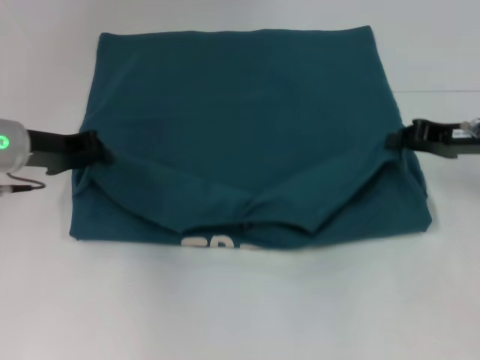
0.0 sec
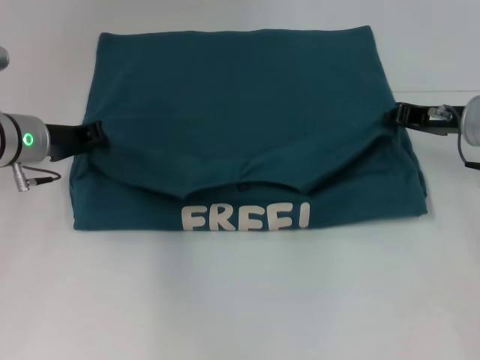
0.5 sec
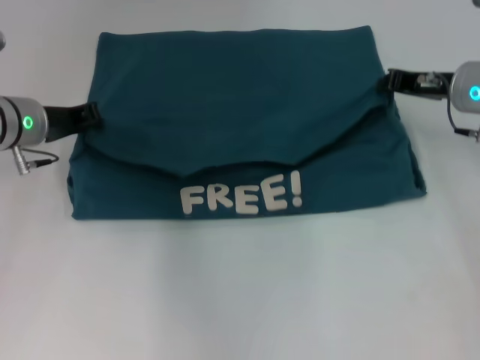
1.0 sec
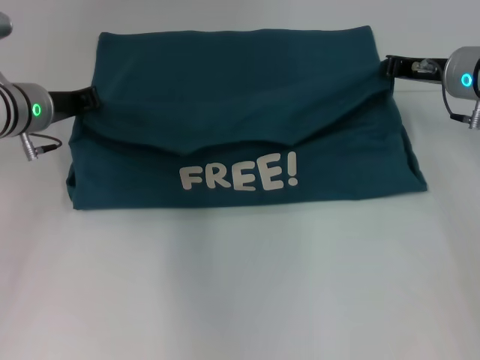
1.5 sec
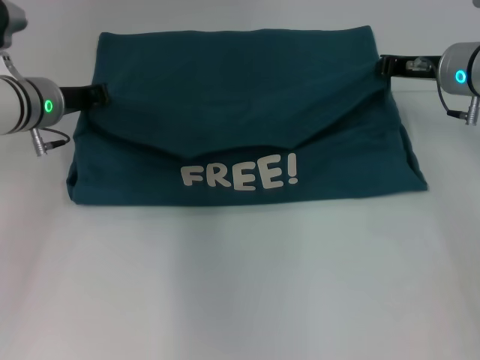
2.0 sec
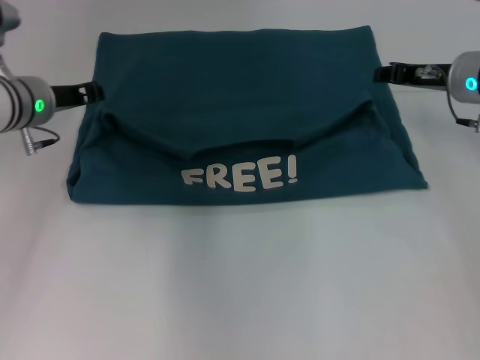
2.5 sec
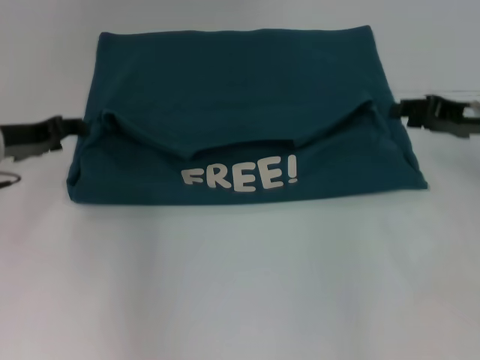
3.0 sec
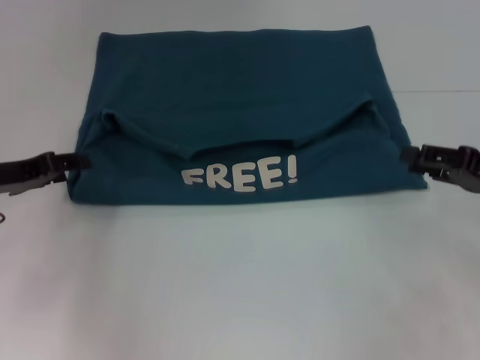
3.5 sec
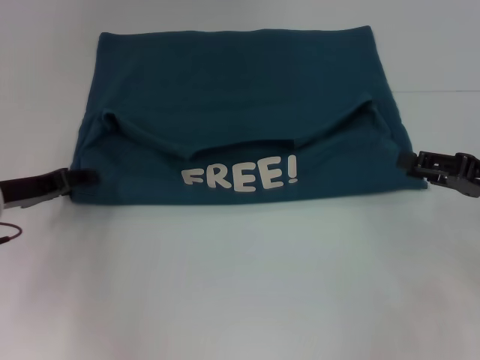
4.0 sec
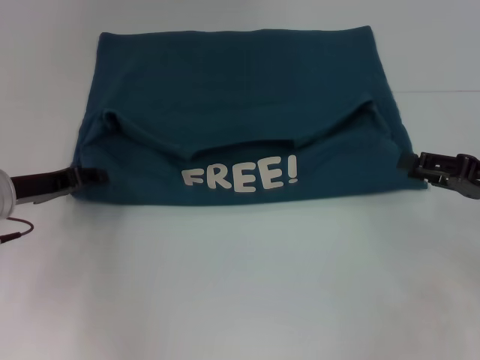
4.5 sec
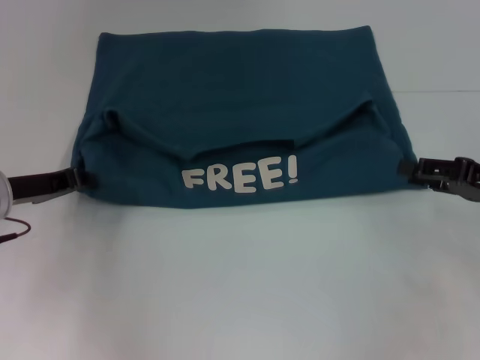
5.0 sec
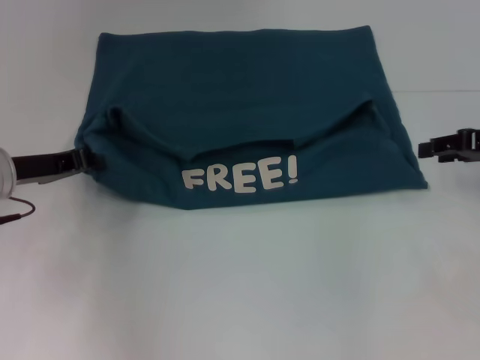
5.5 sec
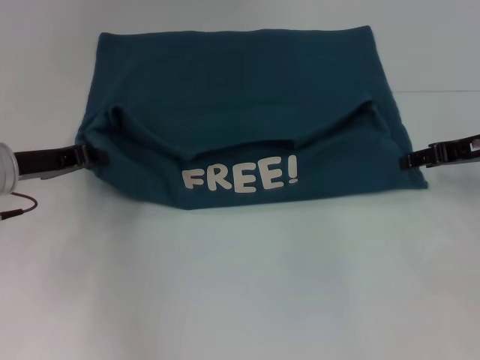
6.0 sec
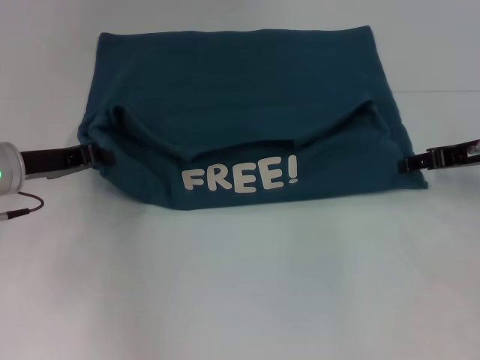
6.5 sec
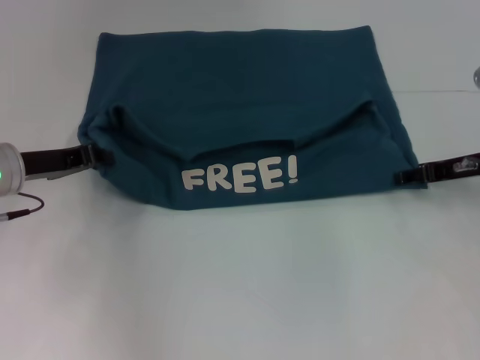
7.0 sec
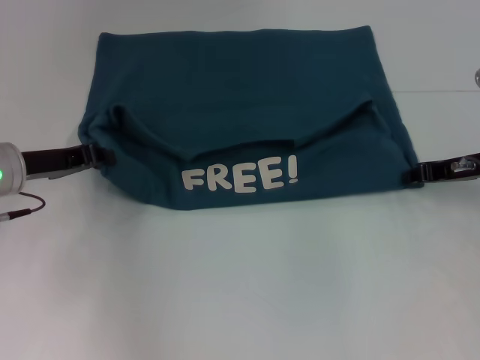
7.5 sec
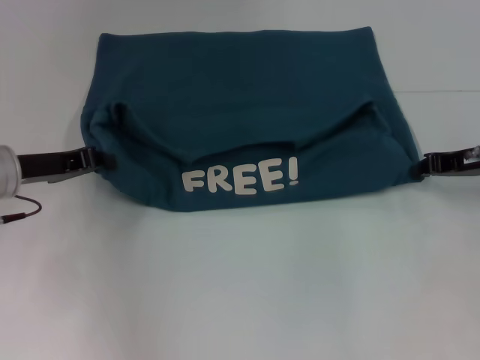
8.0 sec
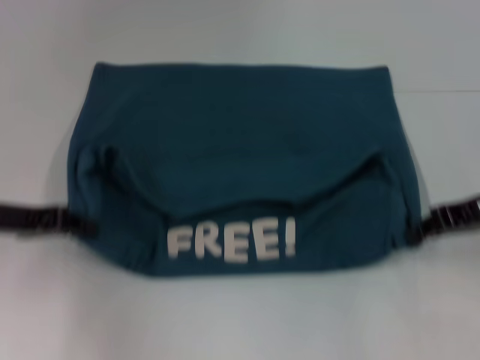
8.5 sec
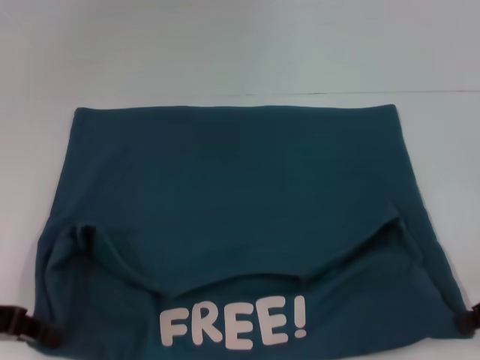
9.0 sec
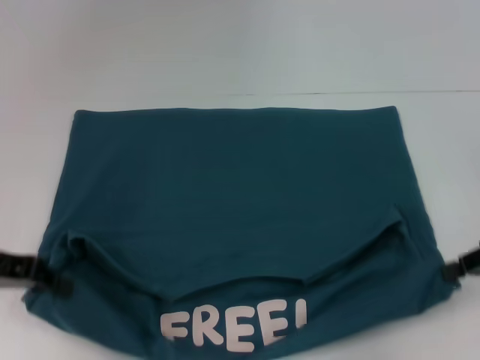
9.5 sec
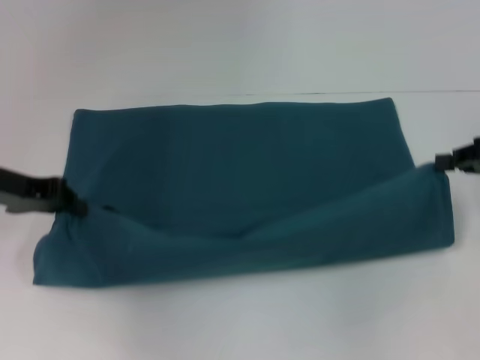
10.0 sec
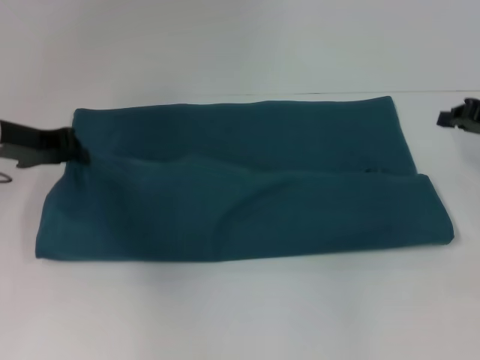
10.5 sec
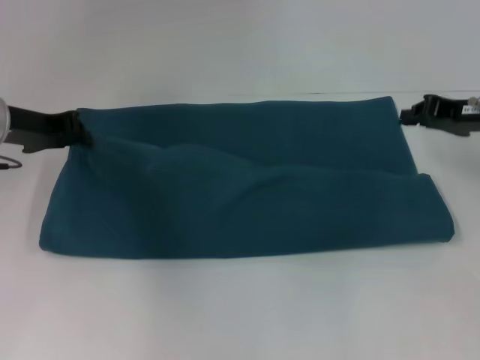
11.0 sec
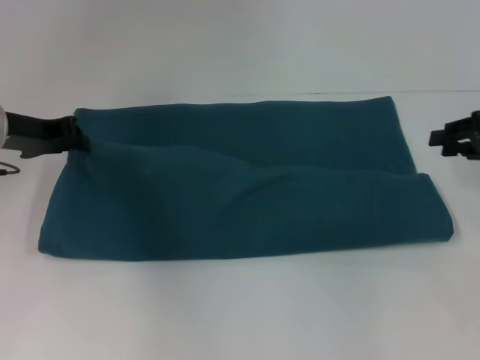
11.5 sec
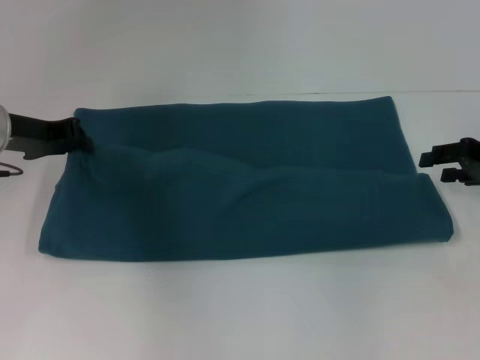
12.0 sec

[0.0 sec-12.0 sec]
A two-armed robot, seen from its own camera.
Step, 0.0 sec to 2.5 sec: Fold the clothes to the left.
Step, 0.0 sec to 2.5 sec: Fold the clothes to the right.
Step, 3.0 sec to 8.5 sec: Pull the clothes with your left hand.
Step, 3.0 sec to 8.5 sec: Pull the clothes with your right hand.
0.0 sec to 2.0 sec: The right gripper travels forward and to the left by approximately 10 cm. The left gripper ends up about 5 cm from where it was.
2.0 sec to 4.0 sec: The right gripper moves backward and to the right, about 15 cm, and opens its fingers; the left gripper moves backward and to the left, approximately 10 cm, and opens up.
4.0 sec to 6.0 sec: The left gripper closes its fingers; the right gripper heads forward, covering approximately 10 cm.
6.0 sec to 8.0 sec: The right gripper closes its fingers.
8.0 sec to 10.0 sec: The left gripper travels backward and back again, about 10 cm each way.
10.0 sec to 12.0 sec: The right gripper opens its fingers.

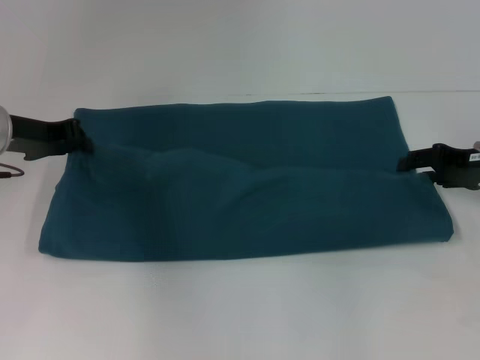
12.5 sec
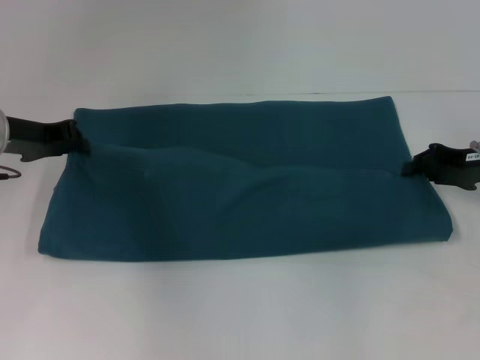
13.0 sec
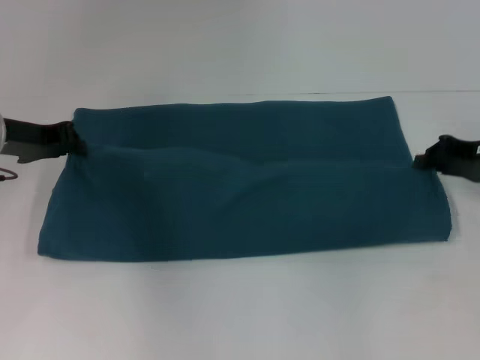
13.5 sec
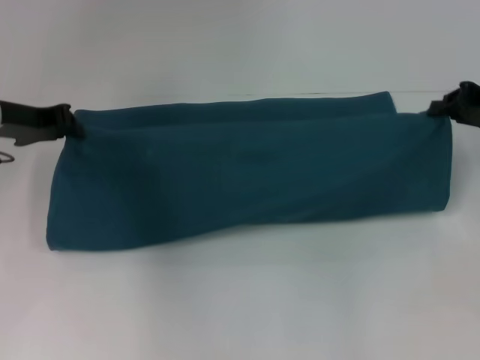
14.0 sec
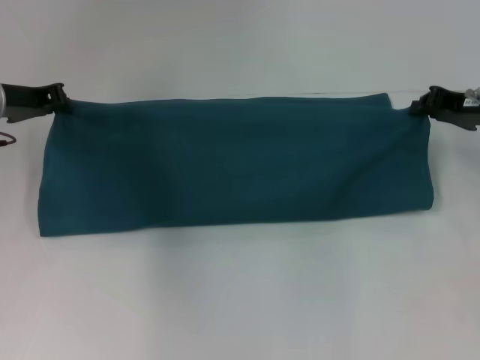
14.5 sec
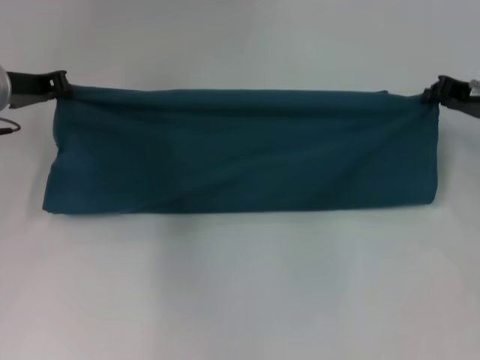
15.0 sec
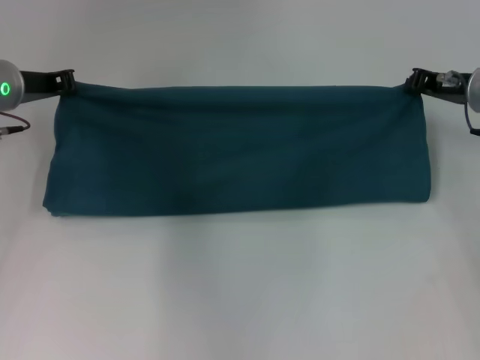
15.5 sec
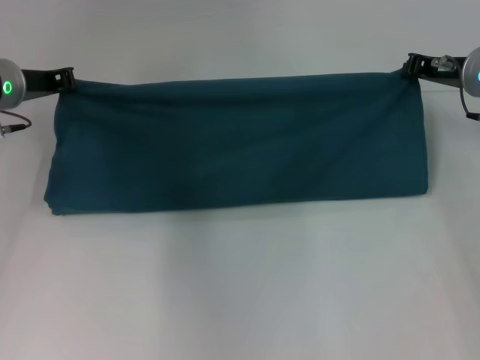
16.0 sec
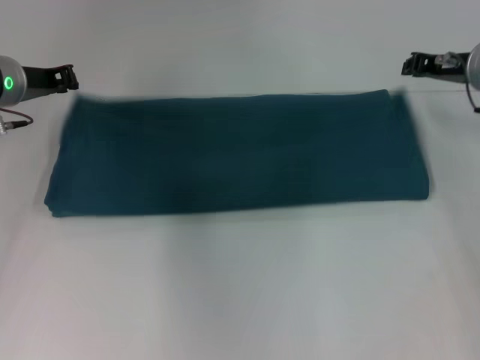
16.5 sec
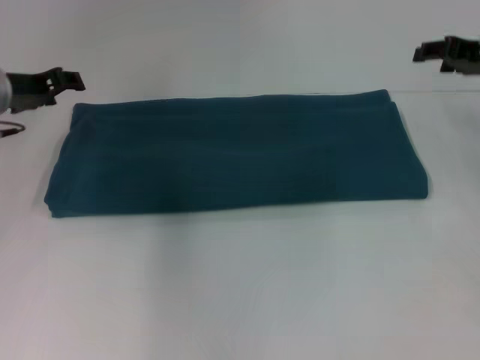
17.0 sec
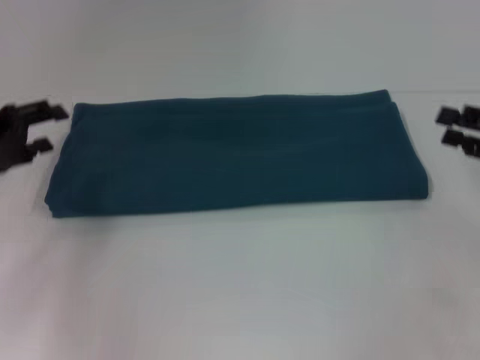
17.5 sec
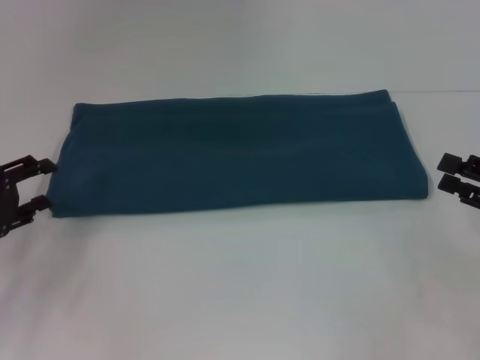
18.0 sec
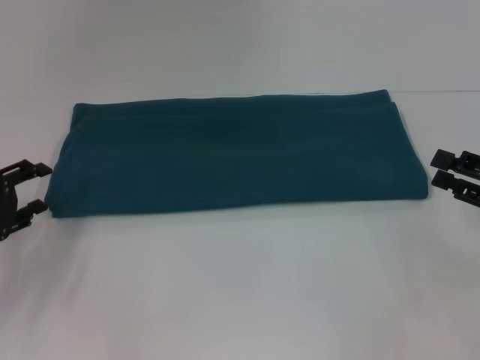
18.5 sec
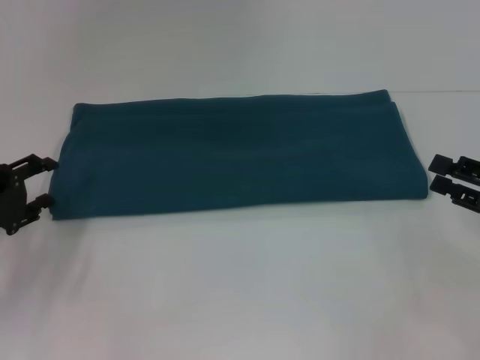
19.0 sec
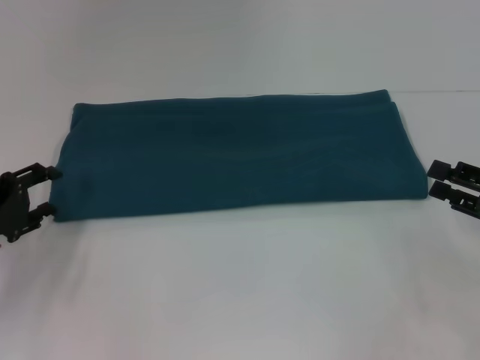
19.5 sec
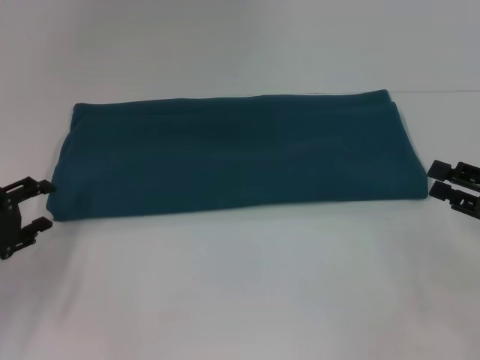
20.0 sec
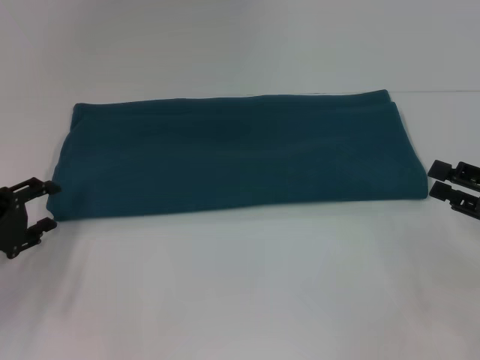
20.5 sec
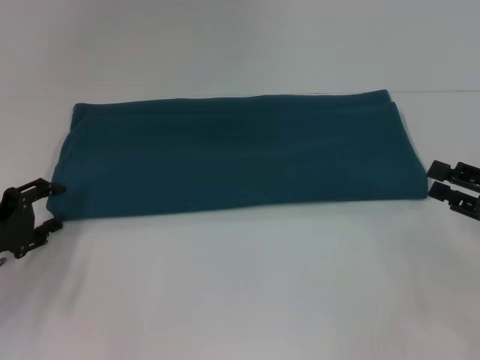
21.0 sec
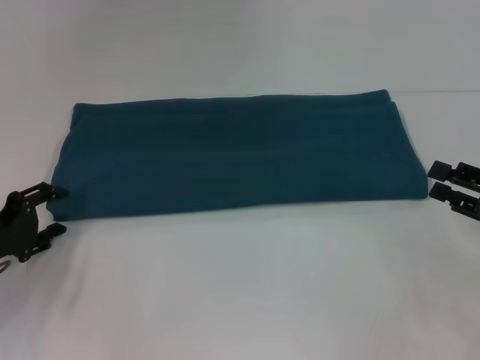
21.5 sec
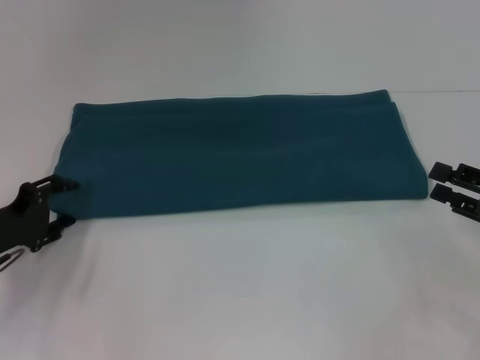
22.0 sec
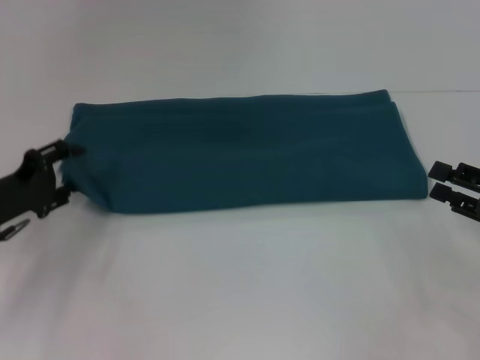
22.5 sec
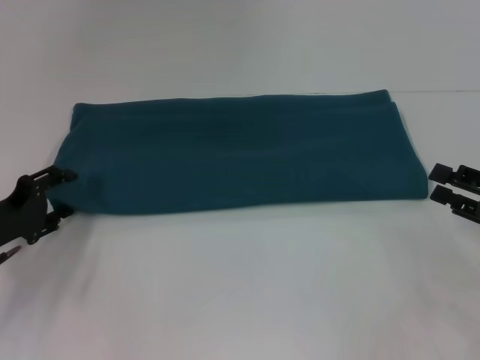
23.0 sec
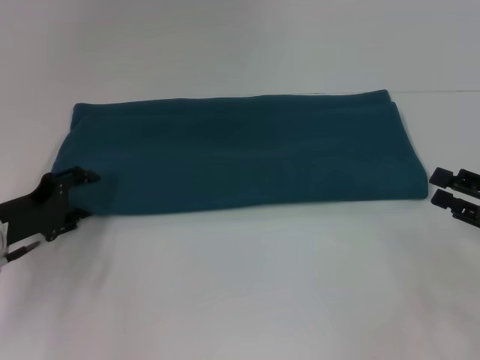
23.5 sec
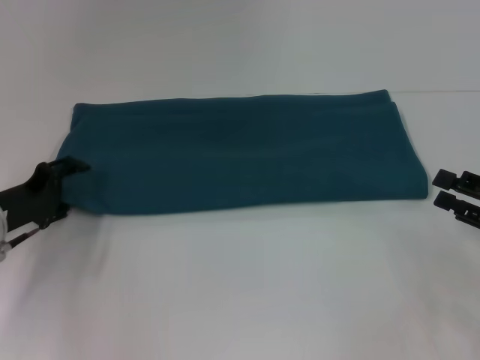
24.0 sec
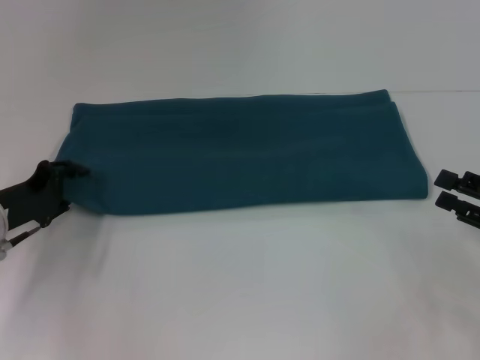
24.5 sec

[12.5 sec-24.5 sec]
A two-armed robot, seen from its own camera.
Step, 12.5 sec to 16.5 sec: Fold the clothes to the right.
12.5 sec to 14.5 sec: The right gripper closes.
14.5 sec to 16.5 sec: The right gripper shifts by some 5 cm.
16.5 sec to 18.5 sec: The right gripper heads backward and to the right, covering about 20 cm, and opens up, while the left gripper shifts approximately 20 cm backward, downward and to the left, and opens up.
18.5 sec to 22.5 sec: The grippers stay close to where they were, moving slightly.
22.5 sec to 24.5 sec: The grippers move only a little.

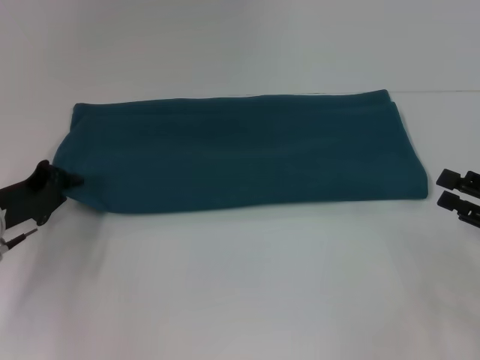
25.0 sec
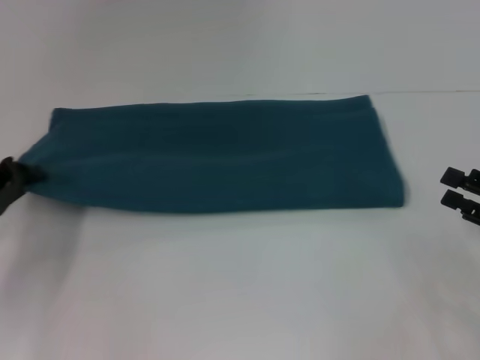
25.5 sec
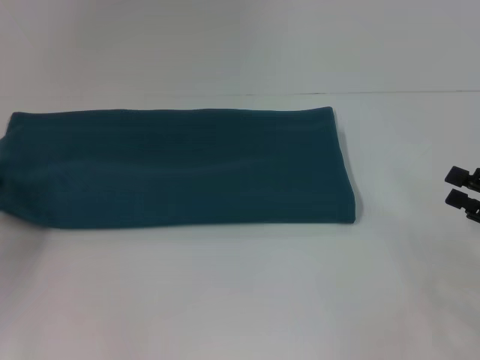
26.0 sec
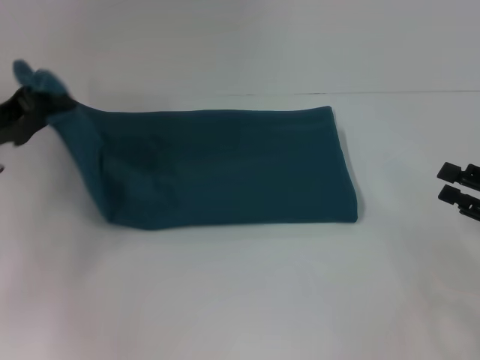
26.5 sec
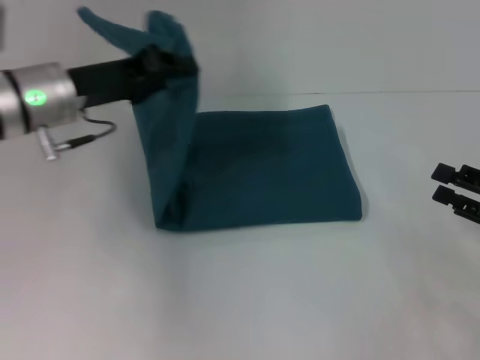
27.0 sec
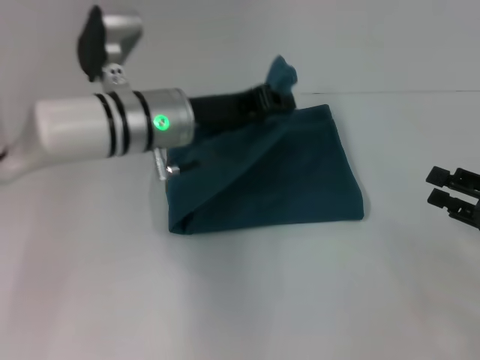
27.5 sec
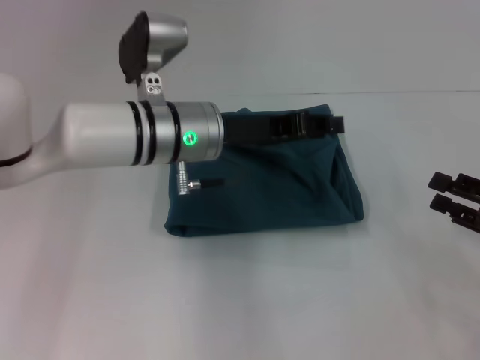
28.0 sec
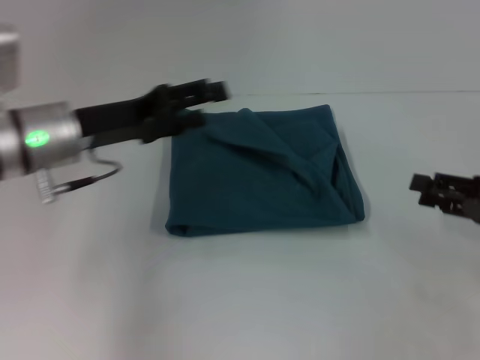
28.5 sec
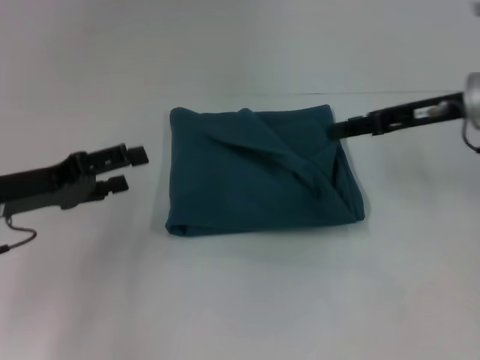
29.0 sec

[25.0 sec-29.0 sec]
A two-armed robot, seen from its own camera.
Step, 25.0 sec to 28.0 sec: Fold the clothes to the left.
25.0 sec to 27.0 sec: The left gripper heads upward, to the right and forward, covering some 15 cm.
27.0 sec to 29.0 sec: The right gripper goes approximately 20 cm forward, to the left and upward; the left gripper goes roughly 10 cm backward and to the left, and opens.
